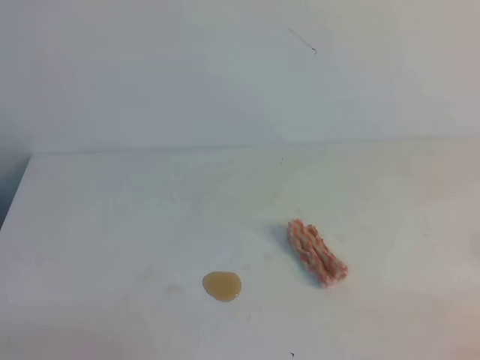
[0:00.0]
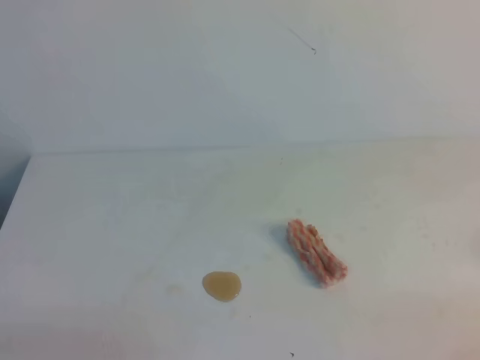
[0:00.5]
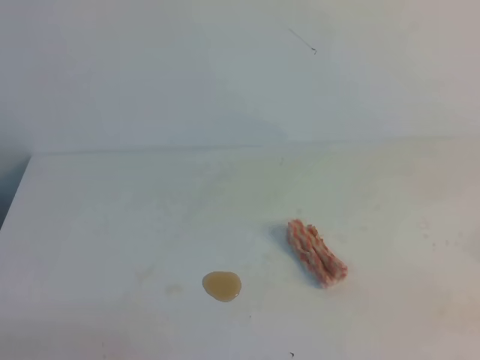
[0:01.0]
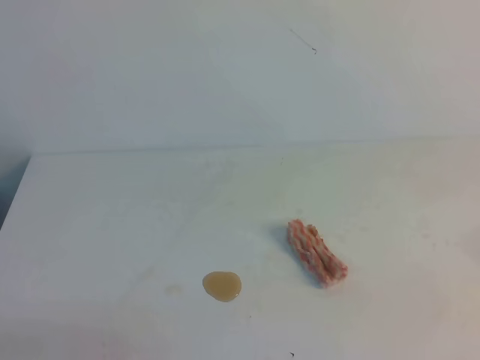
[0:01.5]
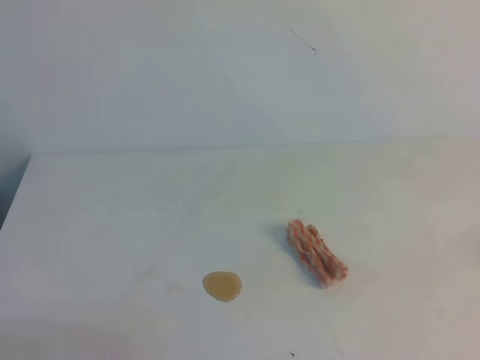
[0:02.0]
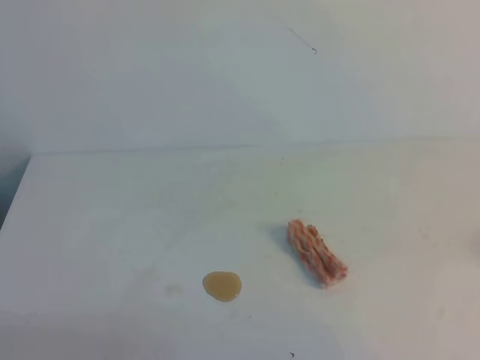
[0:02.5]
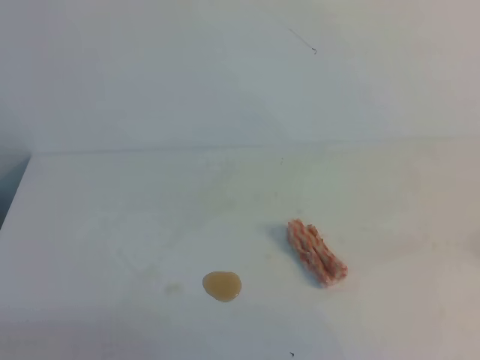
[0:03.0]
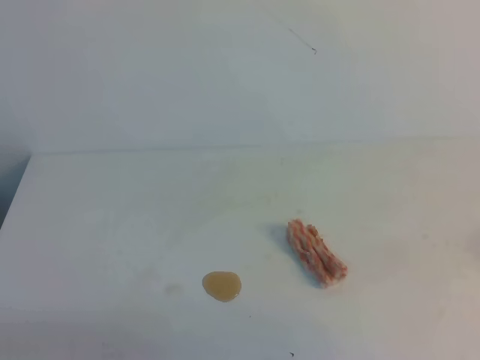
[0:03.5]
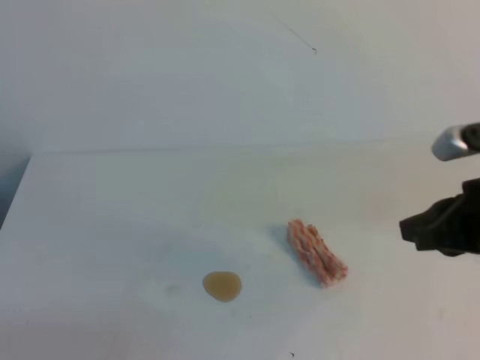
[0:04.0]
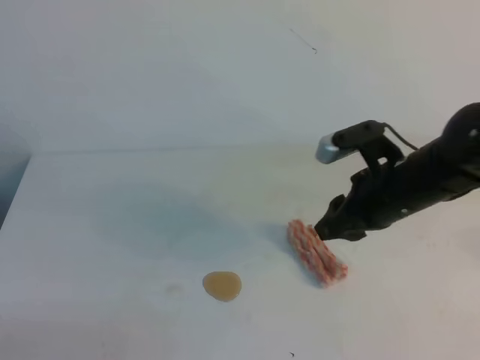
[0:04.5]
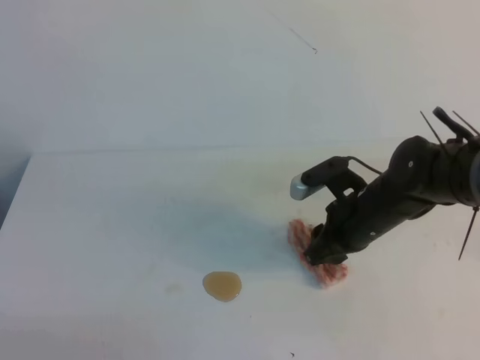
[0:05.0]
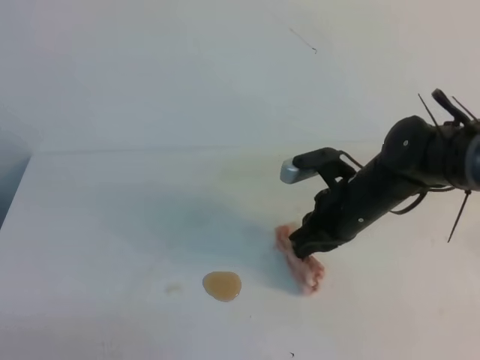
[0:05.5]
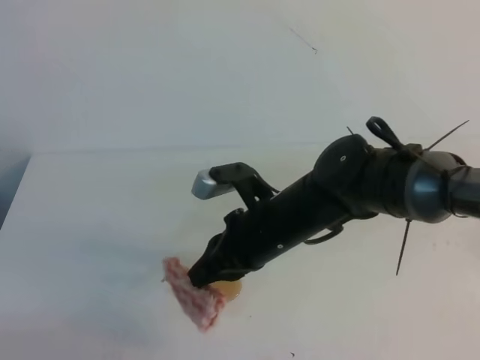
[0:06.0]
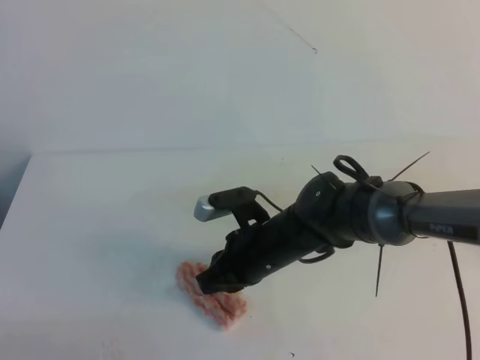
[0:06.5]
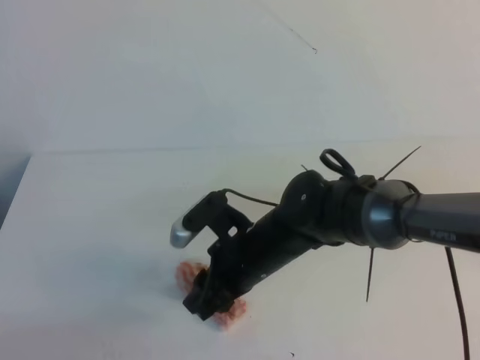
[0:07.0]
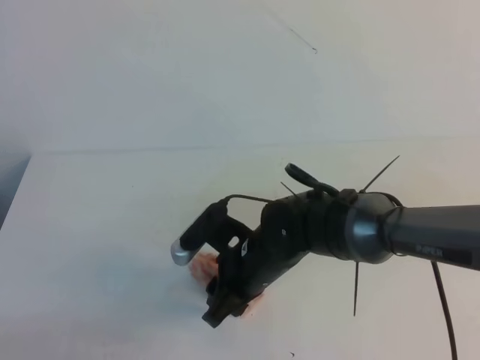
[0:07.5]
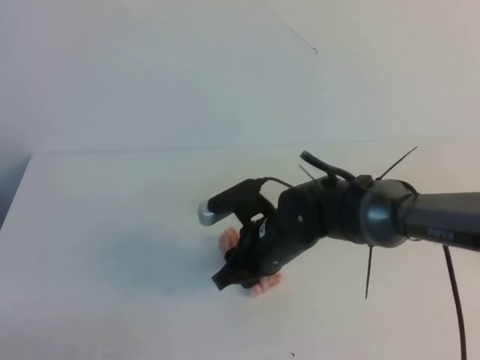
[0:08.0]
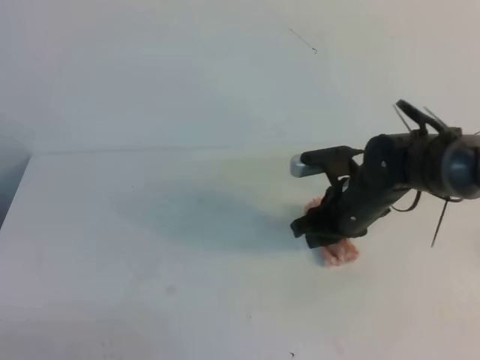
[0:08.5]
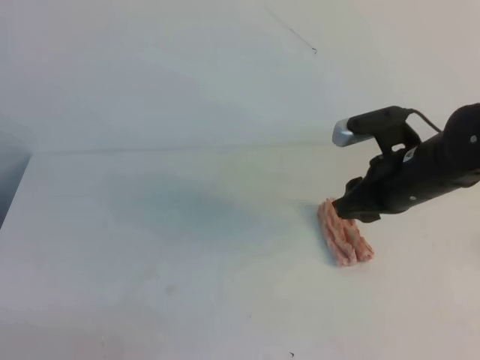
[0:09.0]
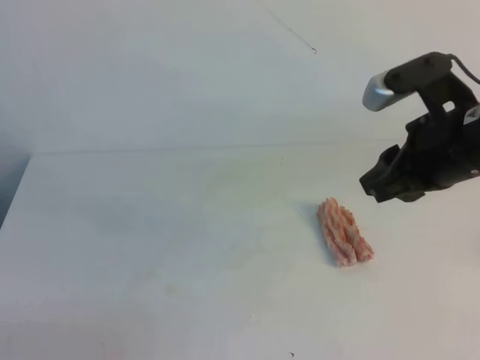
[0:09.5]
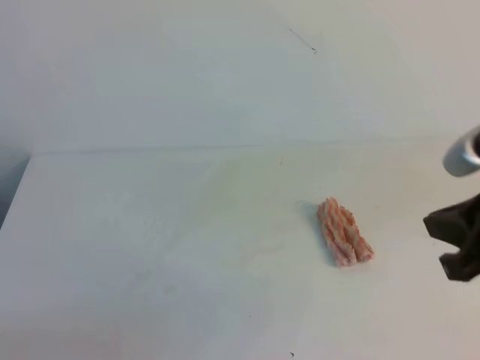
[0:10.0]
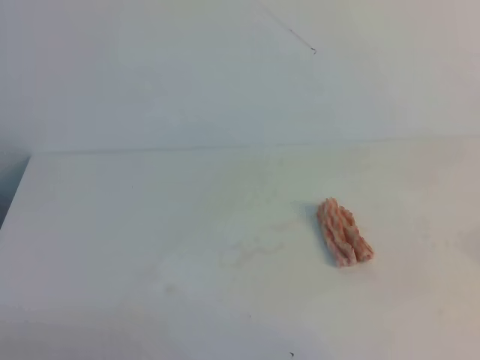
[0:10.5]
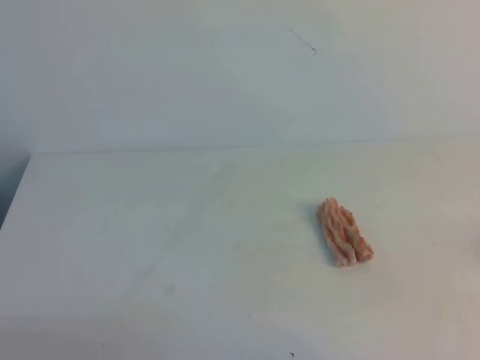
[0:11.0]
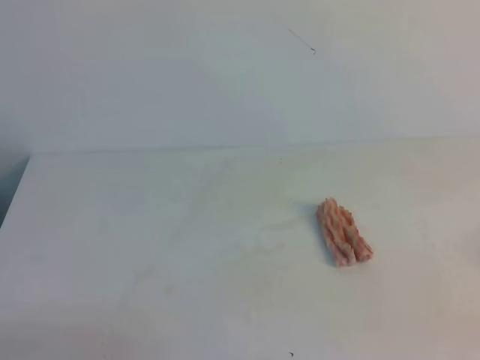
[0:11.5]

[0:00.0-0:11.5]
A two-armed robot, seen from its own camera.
0:02.0 to 0:04.0: The right gripper is displaced forward and to the left by roughly 20 cm.
0:04.0 to 0:06.0: The right gripper goes roughly 20 cm to the left, forward and downward, and opens and closes again.
0:06.0 to 0:07.5: The right gripper ends up some 5 cm from where it was, and opens its fingers.
0:07.5 to 0:09.5: The right gripper moves to the right and upward, approximately 25 cm, and closes.
0:09.5 to 0:11.5: The right gripper goes approximately 25 cm backward and to the right, and closes.

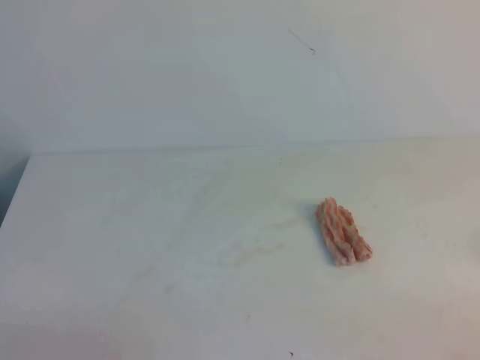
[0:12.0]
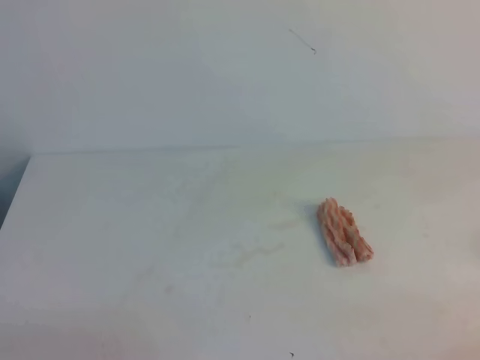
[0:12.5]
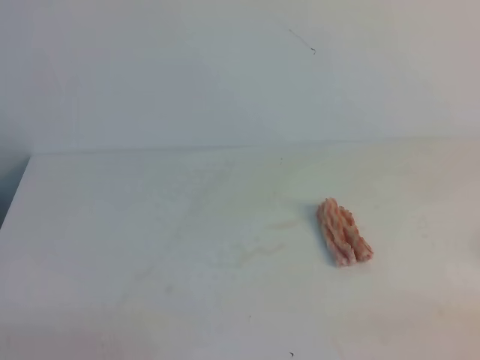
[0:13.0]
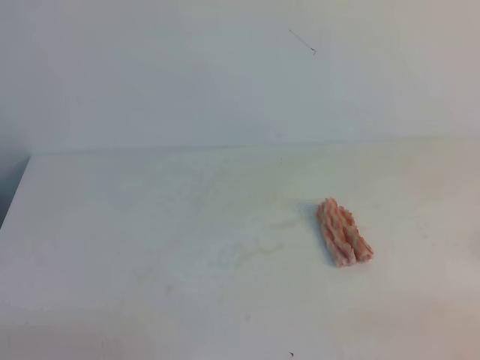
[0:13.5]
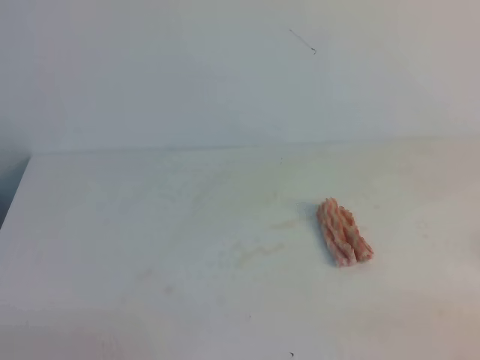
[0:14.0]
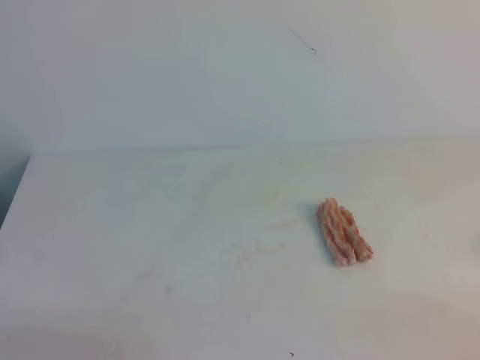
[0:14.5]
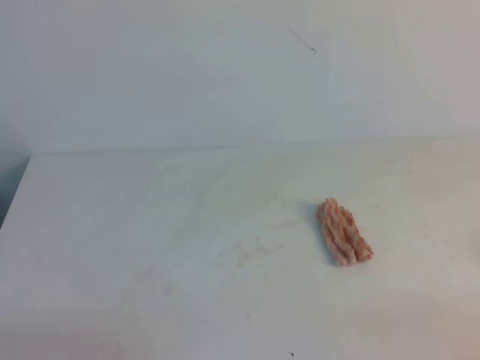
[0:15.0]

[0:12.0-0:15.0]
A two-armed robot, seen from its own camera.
0:13.5 to 0:15.0: Neither gripper changes place.

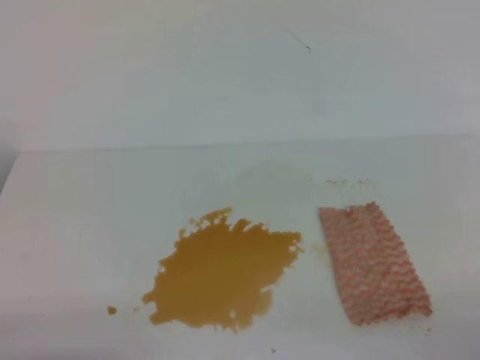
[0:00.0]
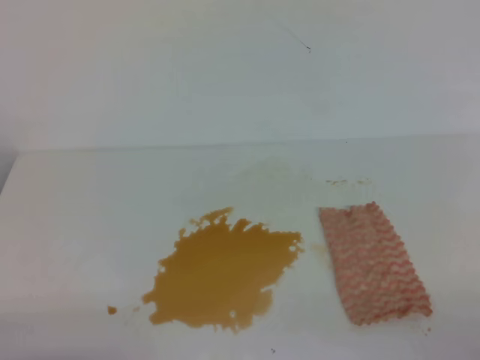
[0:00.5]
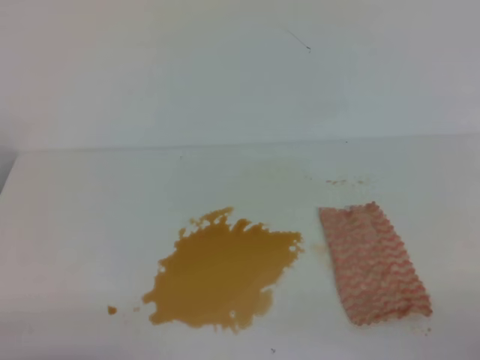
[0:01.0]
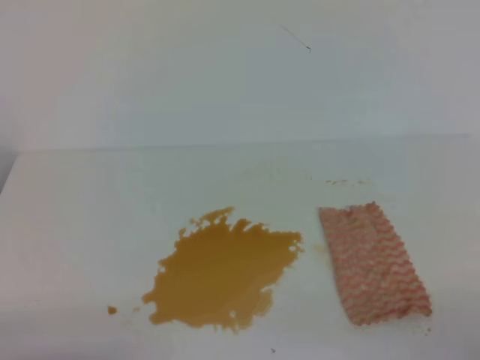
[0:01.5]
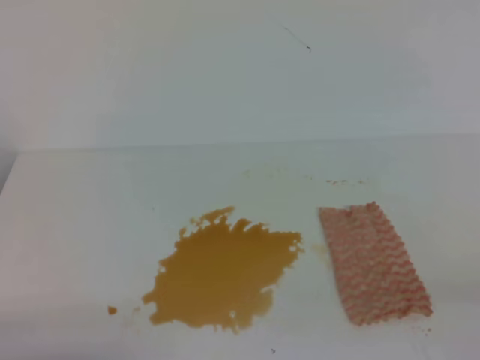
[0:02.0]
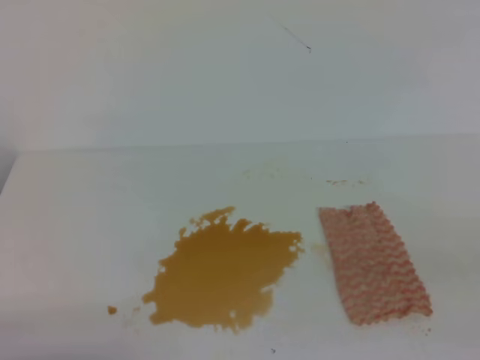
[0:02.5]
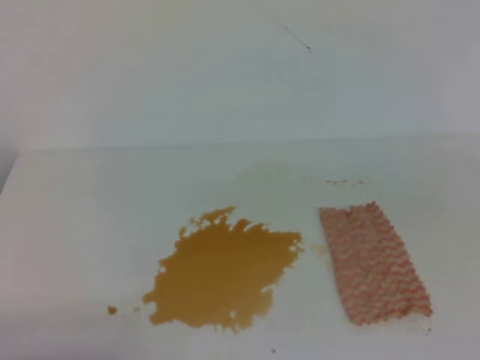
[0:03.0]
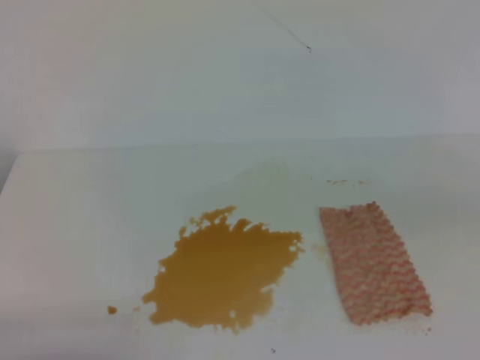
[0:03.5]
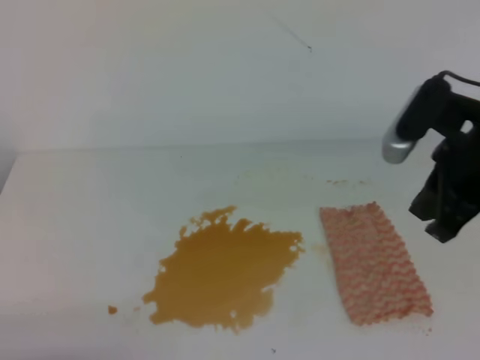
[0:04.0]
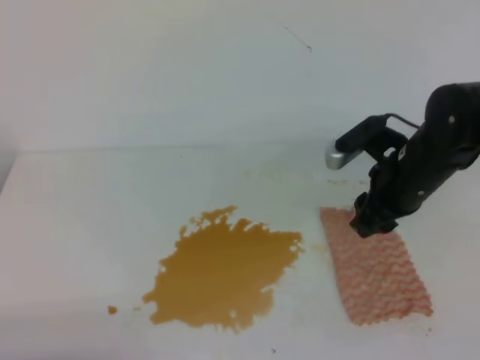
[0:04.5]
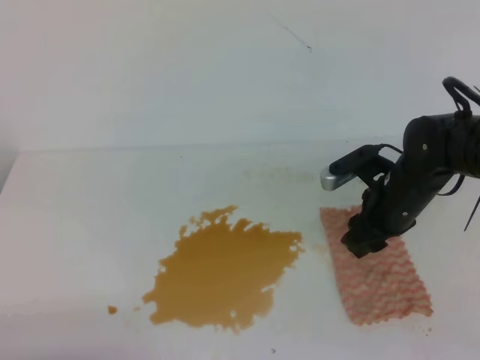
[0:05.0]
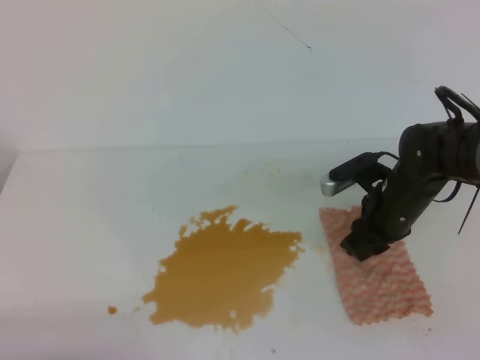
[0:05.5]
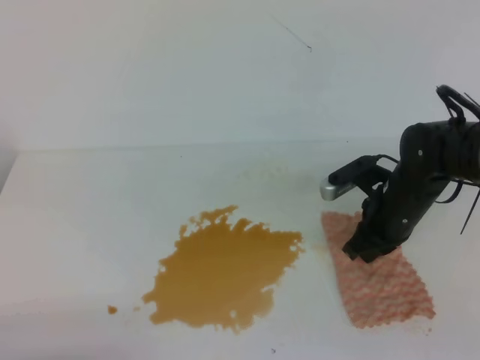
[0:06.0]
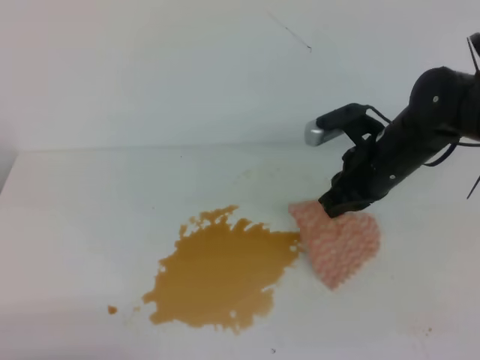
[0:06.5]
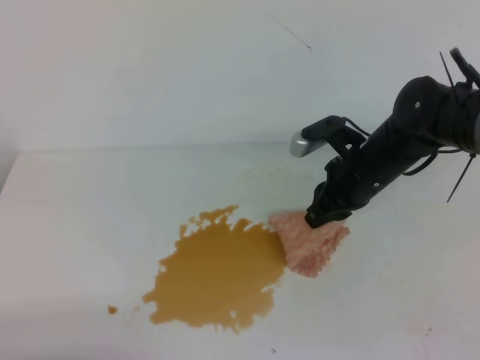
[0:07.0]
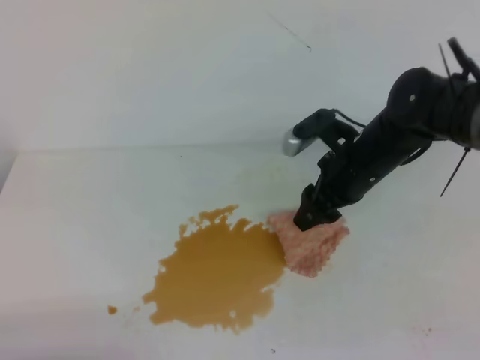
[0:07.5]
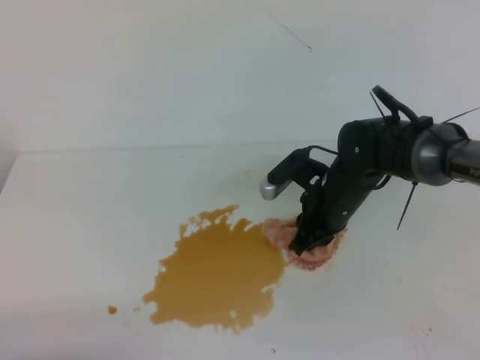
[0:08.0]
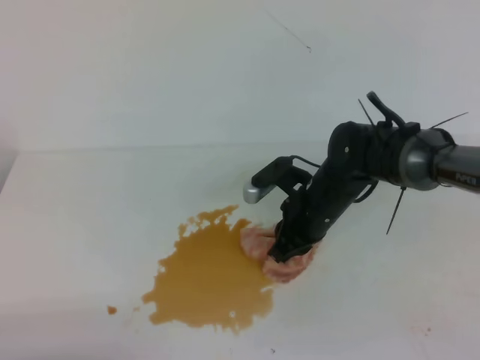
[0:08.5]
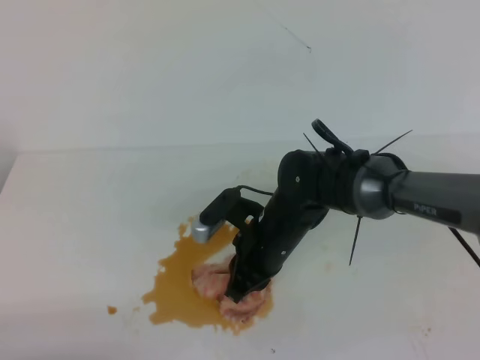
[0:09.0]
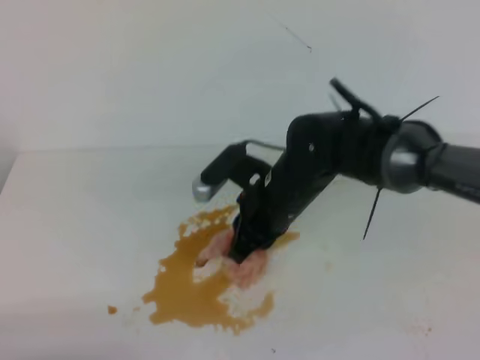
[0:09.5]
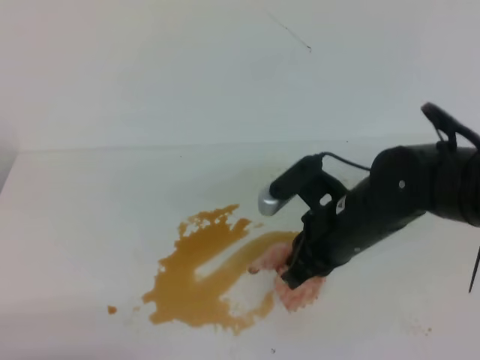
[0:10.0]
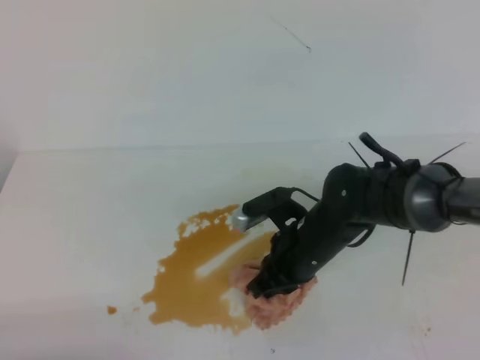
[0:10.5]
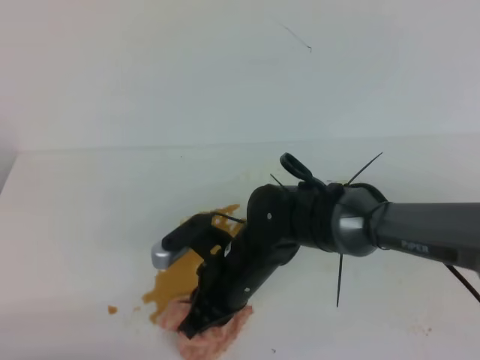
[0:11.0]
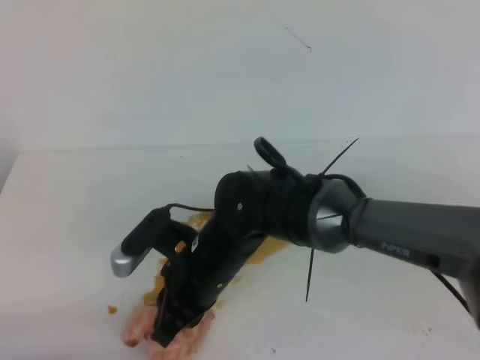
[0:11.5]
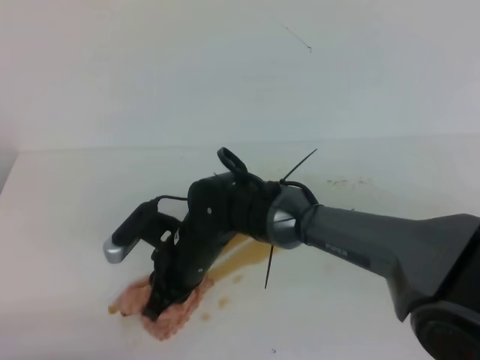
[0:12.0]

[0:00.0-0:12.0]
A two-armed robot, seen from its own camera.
0:02.0 to 0:04.0: The right gripper heads forward and to the left, covering approximately 25 cm.
0:04.0 to 0:06.0: The right gripper is displaced downward and forward by roughly 20 cm, and opens and closes again.
0:06.0 to 0:08.0: The right gripper goes approximately 5 cm to the left, and opens its fingers.
0:08.0 to 0:10.0: The right gripper travels backward and upward by roughly 10 cm, and closes.
0:10.0 to 0:12.0: The right gripper shifts some 15 cm to the left and downward.
